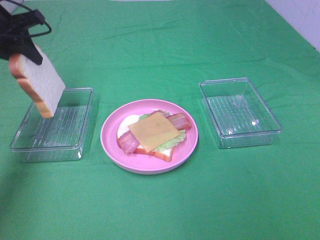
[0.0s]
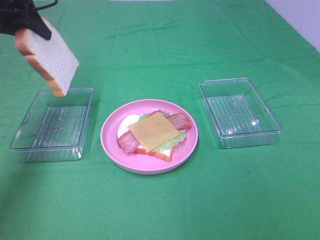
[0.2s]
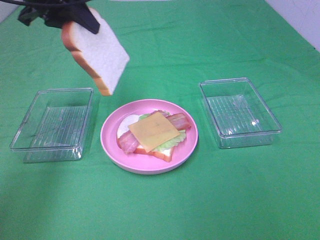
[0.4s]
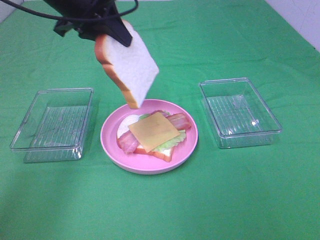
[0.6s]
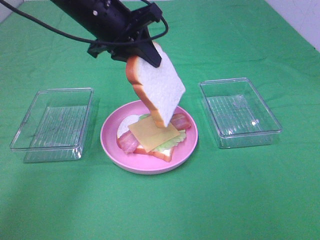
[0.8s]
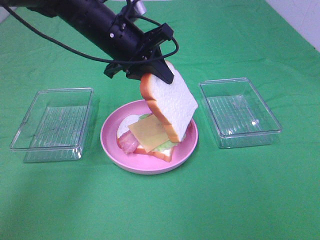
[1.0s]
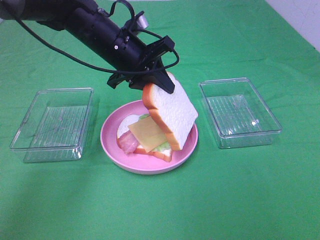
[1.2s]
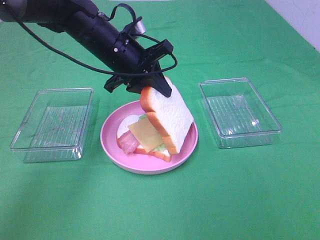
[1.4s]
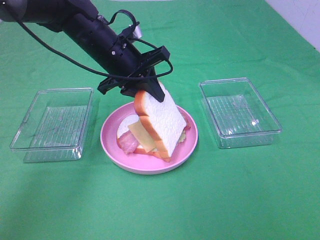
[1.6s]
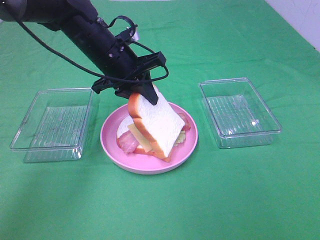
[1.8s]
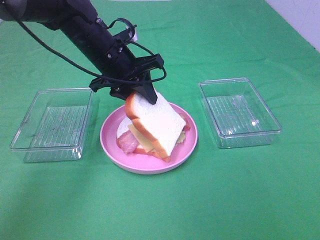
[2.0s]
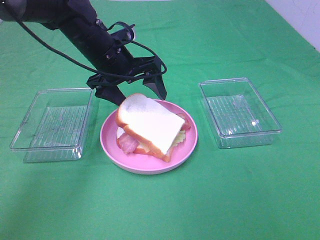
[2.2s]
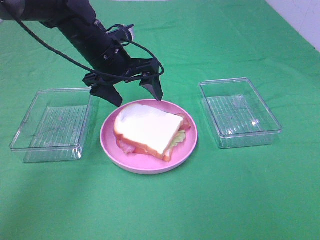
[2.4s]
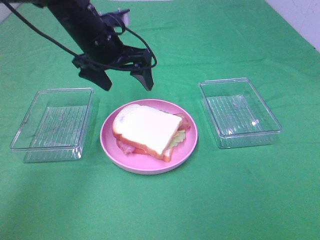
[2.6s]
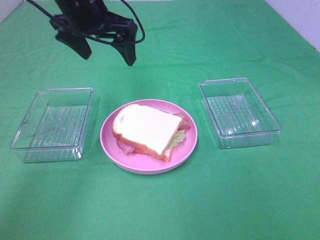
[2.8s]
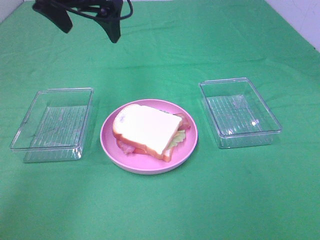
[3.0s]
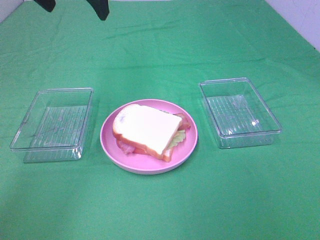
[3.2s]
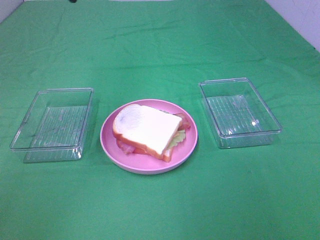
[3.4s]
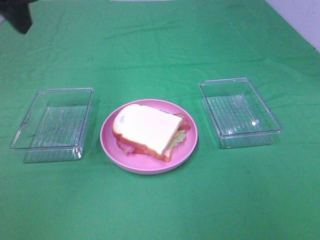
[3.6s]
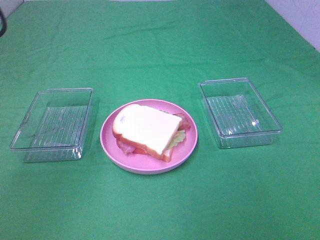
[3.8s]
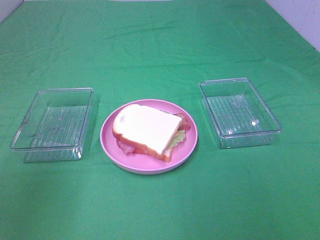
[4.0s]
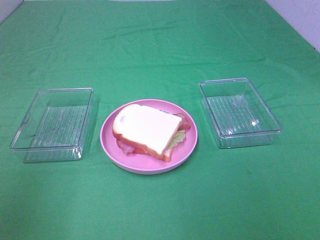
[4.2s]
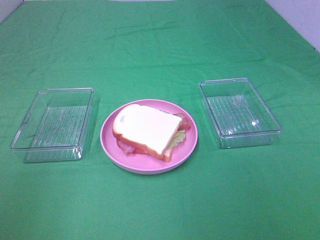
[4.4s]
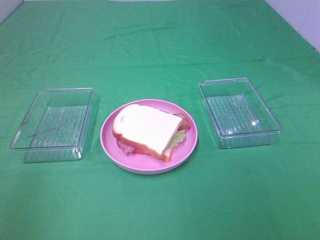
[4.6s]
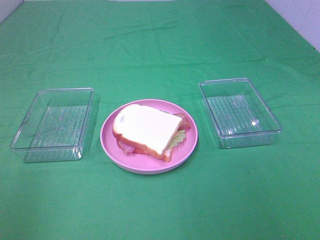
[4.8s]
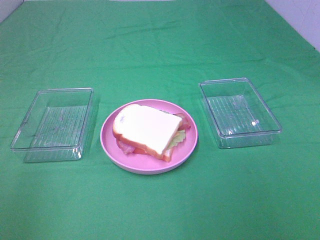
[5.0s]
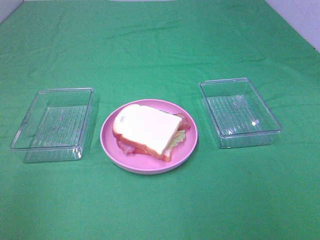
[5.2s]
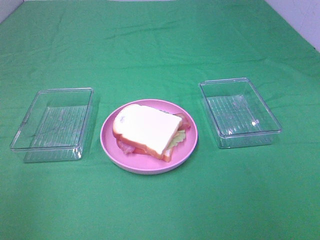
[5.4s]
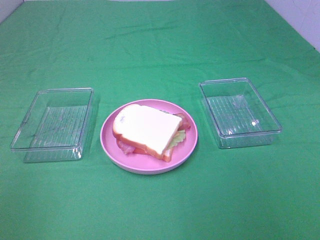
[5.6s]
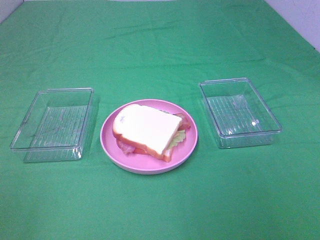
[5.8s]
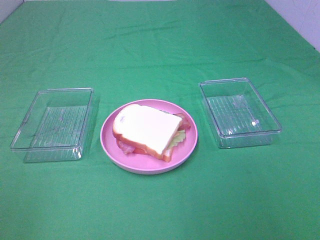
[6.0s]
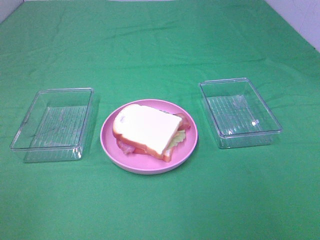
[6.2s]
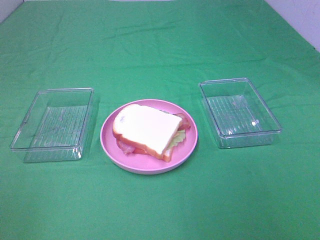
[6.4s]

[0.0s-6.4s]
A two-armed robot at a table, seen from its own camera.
Task of the whole recording: Make sandwiches.
Step, 0.0s to 2.4s: Left hand:place the bread slice on the cheese slice.
0.0s to 1.6s: The left gripper travels to the right by some 20 cm.
1.6s to 3.2s: The left gripper heads upward, covering roughly 20 cm, and opens its fingers.
3.2s to 4.8s: The left gripper shifts approximately 40 cm backward and to the left.

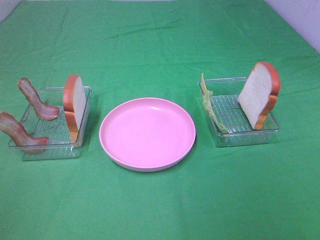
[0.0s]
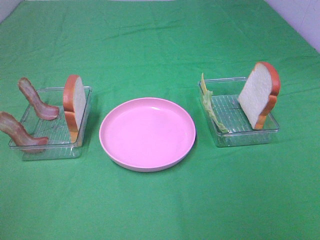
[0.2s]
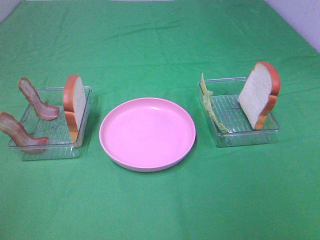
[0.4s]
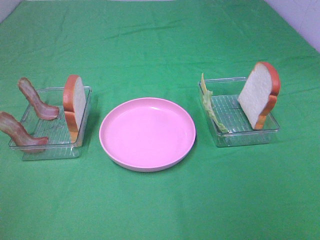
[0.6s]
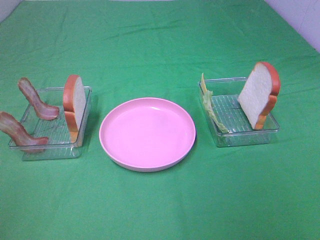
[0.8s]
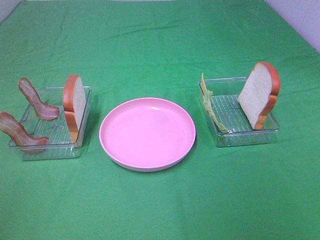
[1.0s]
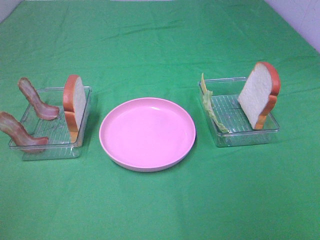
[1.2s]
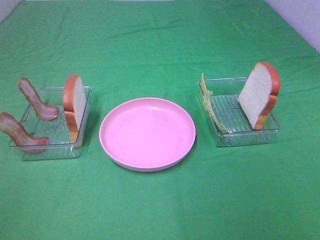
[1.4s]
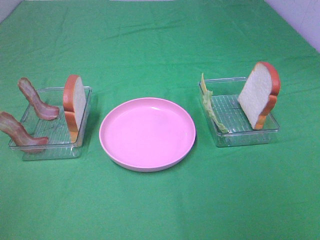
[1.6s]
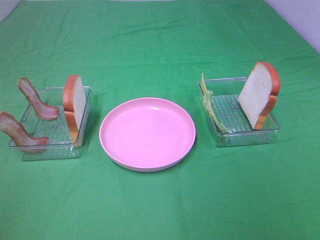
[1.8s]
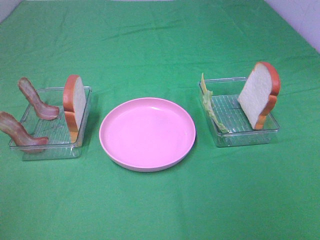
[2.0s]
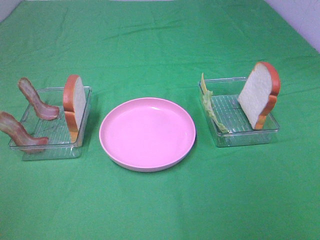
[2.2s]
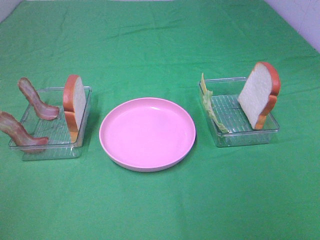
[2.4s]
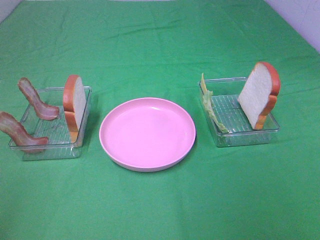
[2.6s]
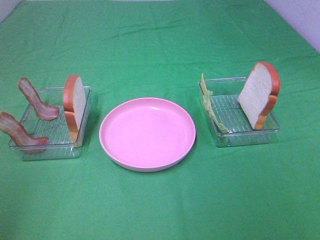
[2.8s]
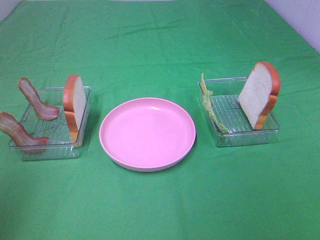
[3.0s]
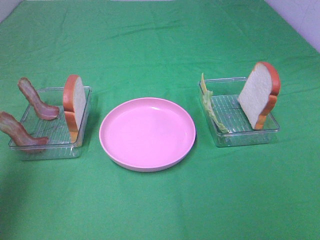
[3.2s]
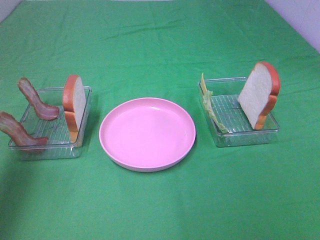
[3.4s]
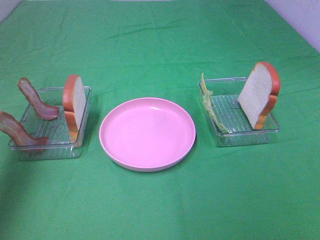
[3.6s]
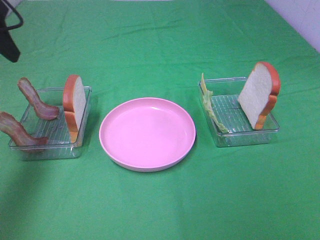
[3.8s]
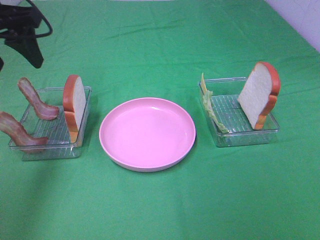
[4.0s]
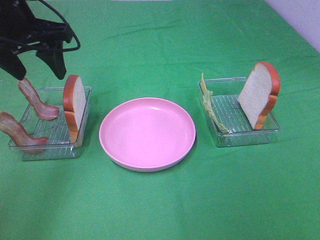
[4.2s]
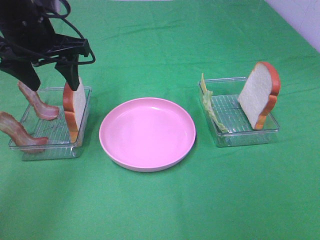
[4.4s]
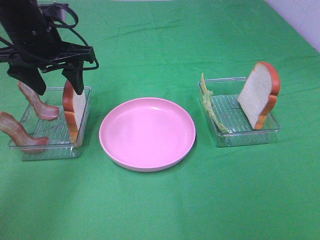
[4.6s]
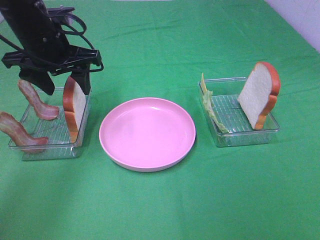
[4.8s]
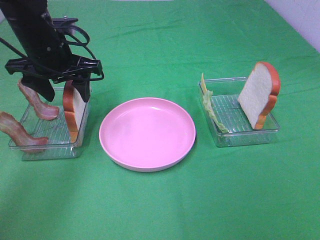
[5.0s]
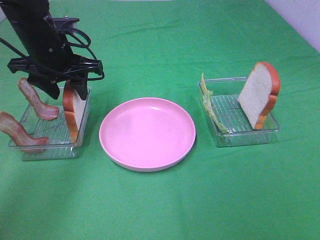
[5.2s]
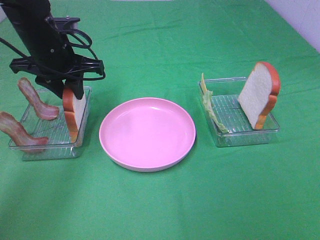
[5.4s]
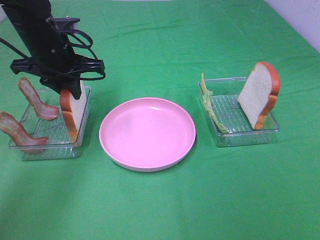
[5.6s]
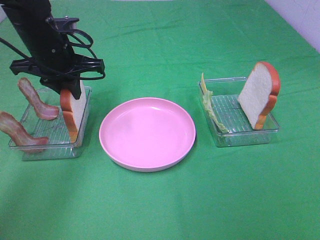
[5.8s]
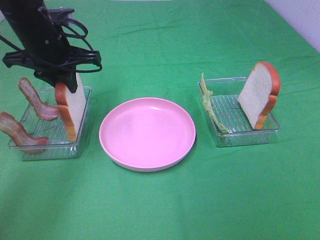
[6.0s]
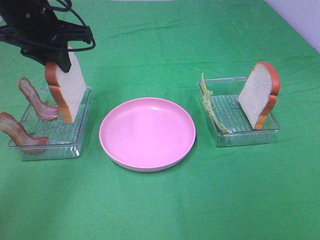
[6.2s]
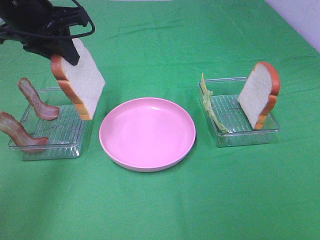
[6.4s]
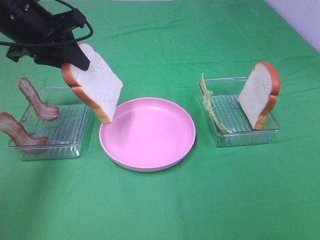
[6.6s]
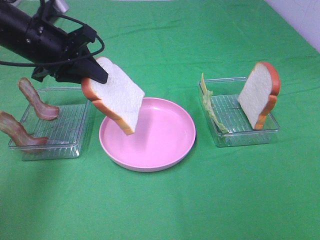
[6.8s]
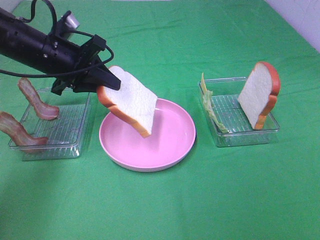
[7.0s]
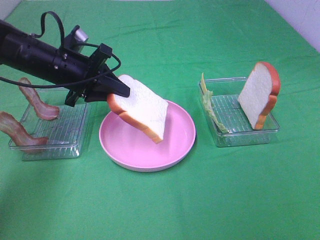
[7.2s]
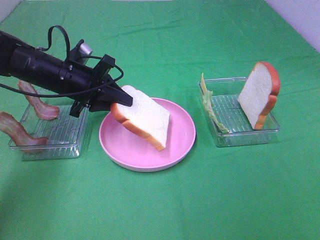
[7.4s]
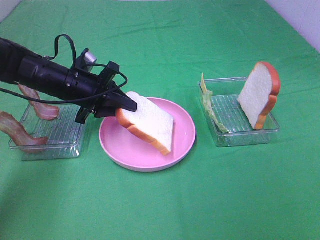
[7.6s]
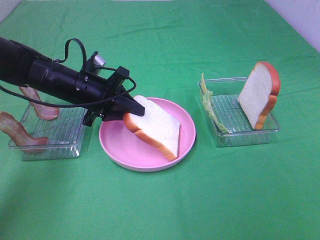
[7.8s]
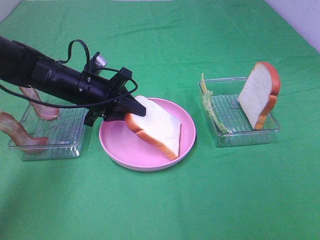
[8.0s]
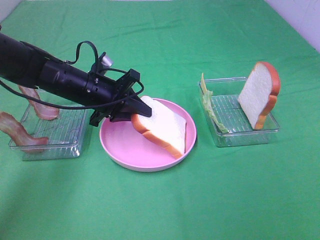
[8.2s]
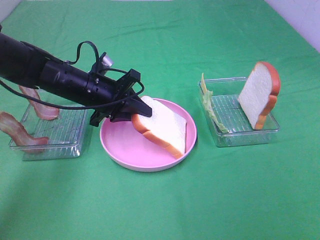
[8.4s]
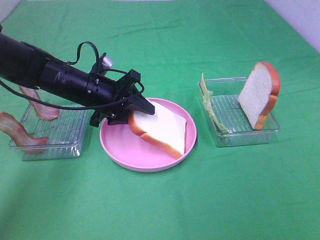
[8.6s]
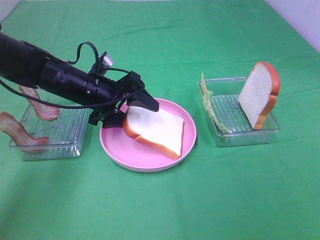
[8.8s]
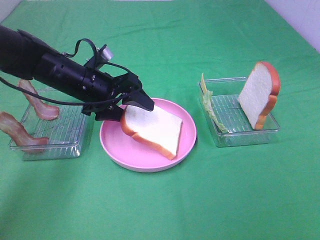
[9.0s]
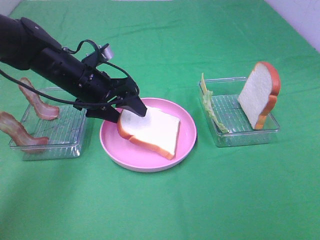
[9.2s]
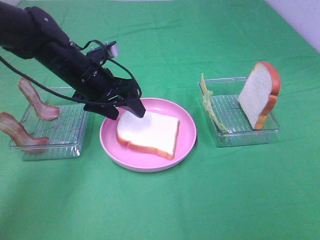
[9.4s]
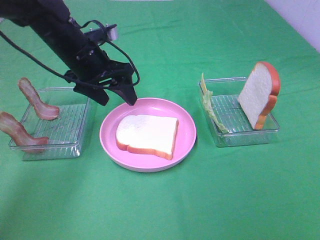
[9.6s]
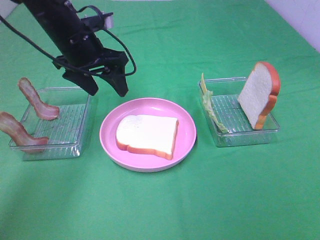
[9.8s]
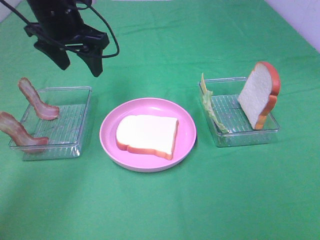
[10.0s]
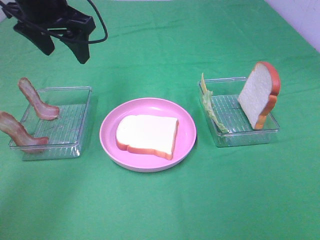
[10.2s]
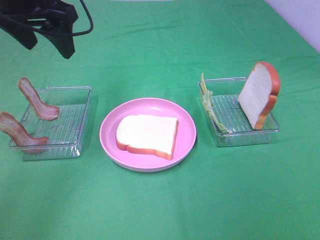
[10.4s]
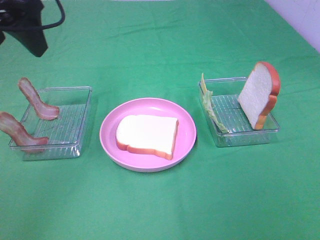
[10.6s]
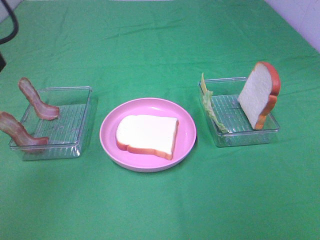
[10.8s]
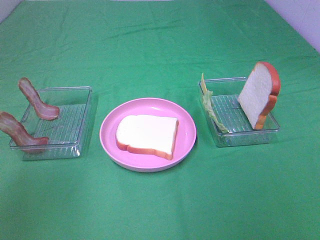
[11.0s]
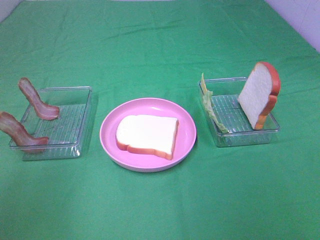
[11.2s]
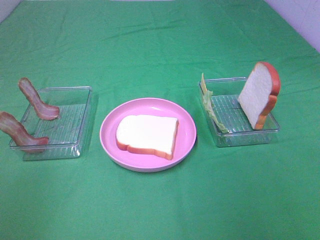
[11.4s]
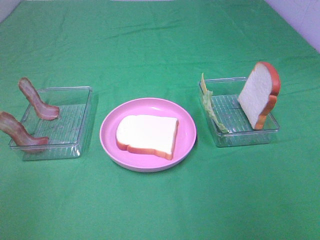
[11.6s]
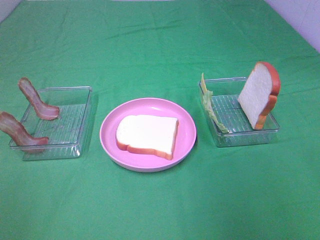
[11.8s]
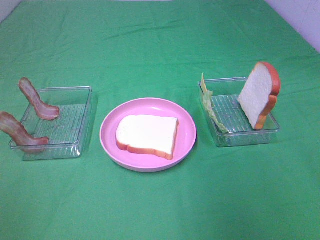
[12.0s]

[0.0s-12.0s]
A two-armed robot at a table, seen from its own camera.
Task of the whole recording: Make sandwiches.
Step, 0.0s to 5.8s: Left hand:grab the bread slice.
Step, 6.0s to 9.6s: Left hand:place the bread slice on the plate.
0.0s to 1.6s: Both grippers stay put.
3.0s to 4.4s: The left gripper moves forward and to the right, about 30 cm.
4.4s to 6.0s: The left gripper closes.
6.0s to 7.6s: The left gripper shifts about 10 cm downward.
7.6s to 9.0s: The left gripper opens up.
9.0s to 10.4s: The left gripper travels upward by approximately 20 cm.
10.4s to 12.0s: The left gripper travels backward by approximately 35 cm.

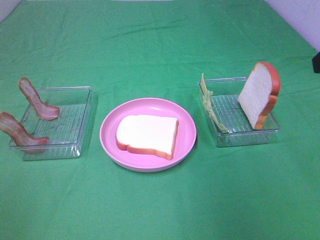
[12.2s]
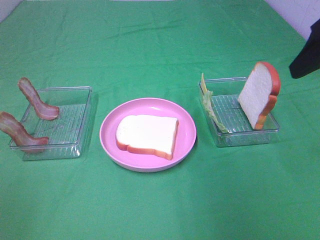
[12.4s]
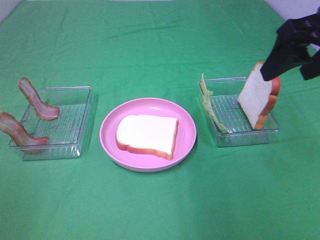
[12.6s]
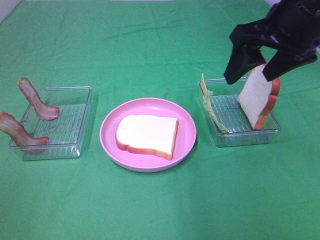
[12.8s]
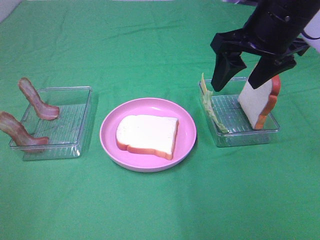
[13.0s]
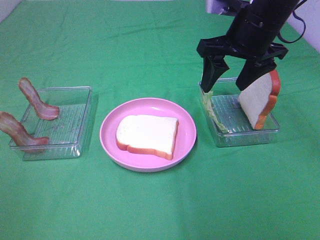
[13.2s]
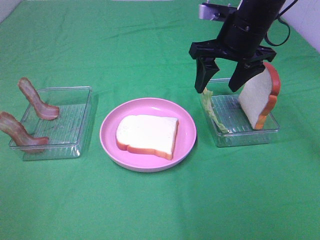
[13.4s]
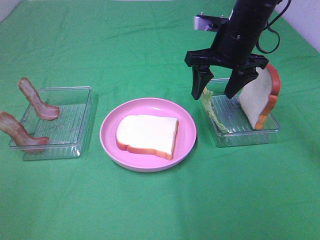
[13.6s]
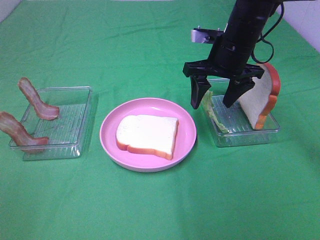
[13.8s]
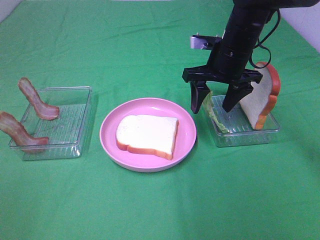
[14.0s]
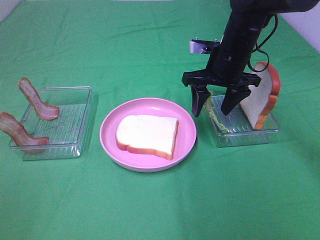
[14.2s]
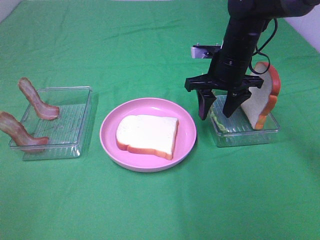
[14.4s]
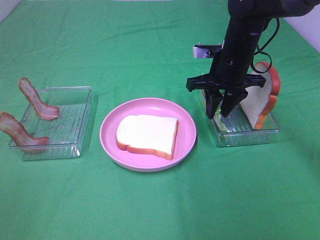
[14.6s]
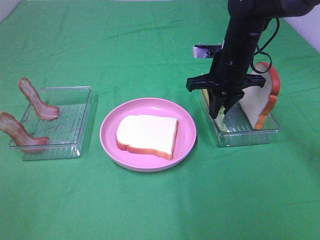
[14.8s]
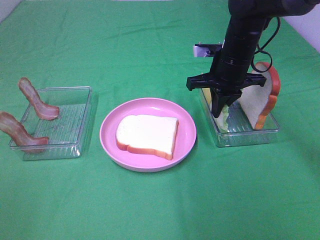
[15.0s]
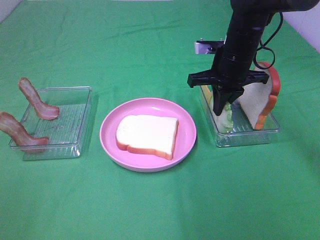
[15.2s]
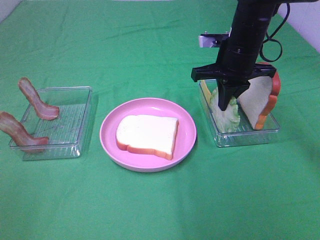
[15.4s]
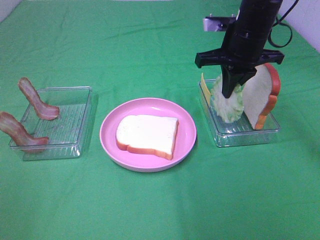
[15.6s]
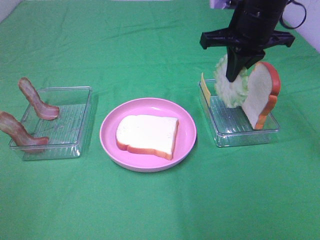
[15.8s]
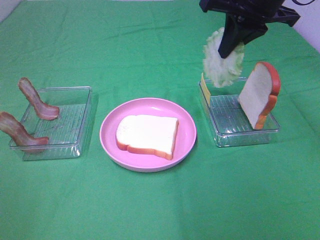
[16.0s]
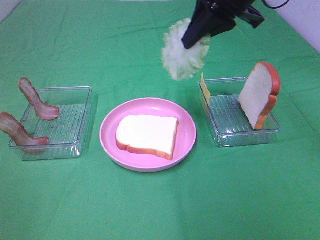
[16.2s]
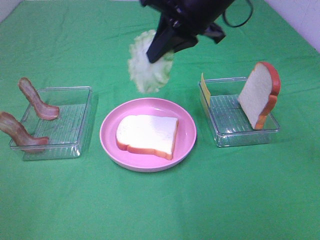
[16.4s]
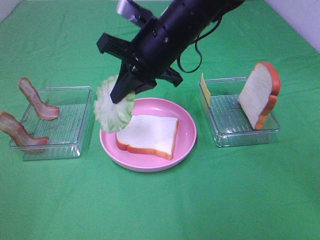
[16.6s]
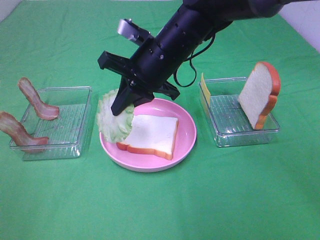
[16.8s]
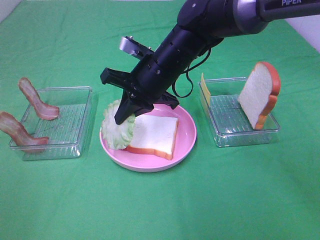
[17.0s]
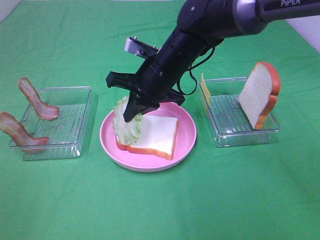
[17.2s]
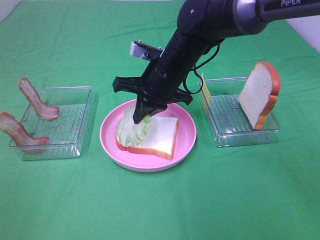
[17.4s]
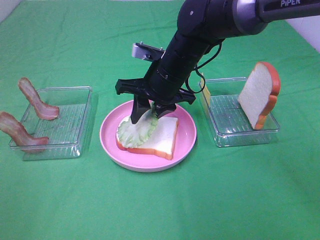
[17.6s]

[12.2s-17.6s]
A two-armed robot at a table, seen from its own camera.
Task of the whole recording: Make sandwiches.
Step, 12.2s to 15.4s: Right hand:grab the lettuce slice.
12.2s to 13.6s: The right gripper heads forward, to the left and downward, covering approximately 25 cm.
13.6s to 15.0s: The right gripper closes.
15.0s to 16.2s: The right gripper moves upward, approximately 15 cm.
16.2s to 17.6s: The right gripper travels downward and to the left by approximately 20 cm, and opens up.
